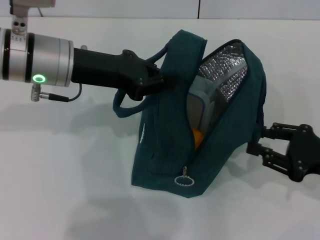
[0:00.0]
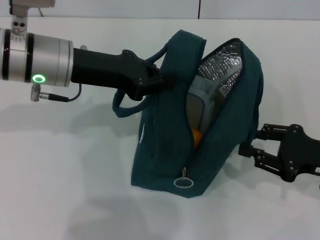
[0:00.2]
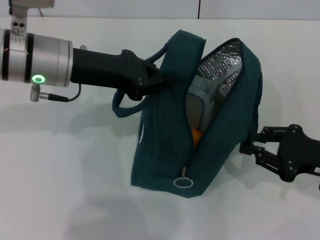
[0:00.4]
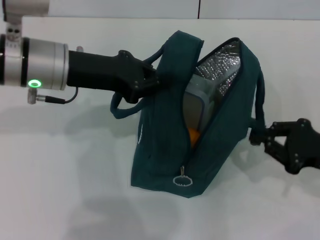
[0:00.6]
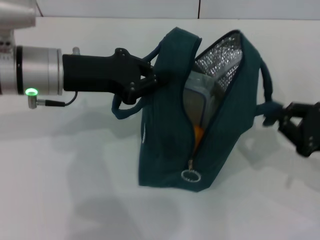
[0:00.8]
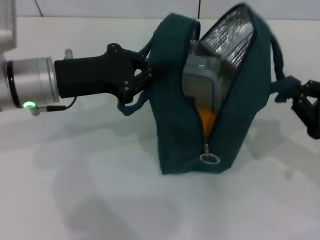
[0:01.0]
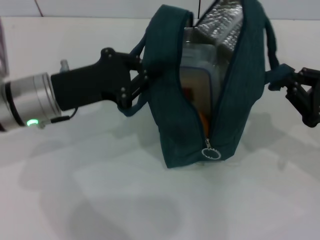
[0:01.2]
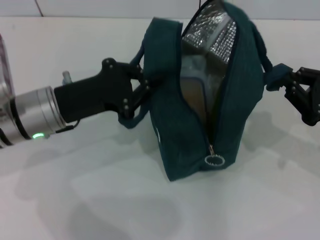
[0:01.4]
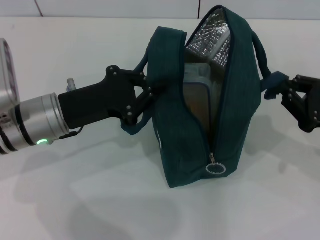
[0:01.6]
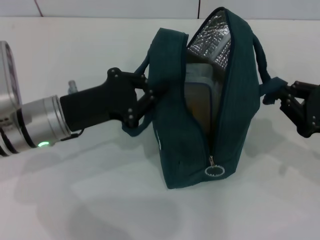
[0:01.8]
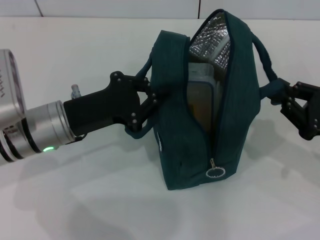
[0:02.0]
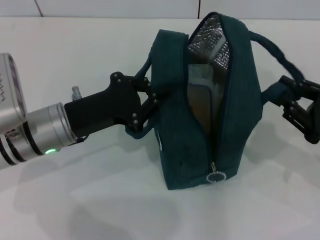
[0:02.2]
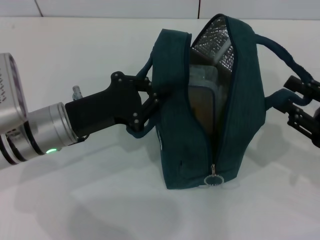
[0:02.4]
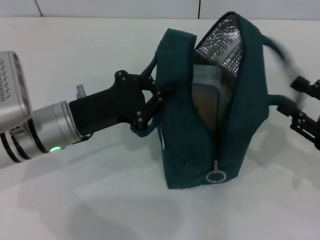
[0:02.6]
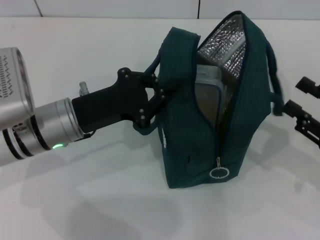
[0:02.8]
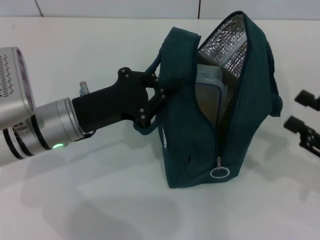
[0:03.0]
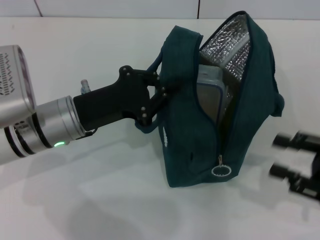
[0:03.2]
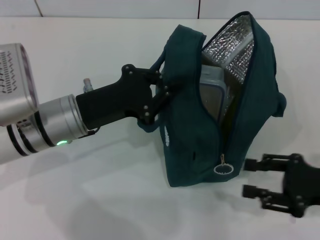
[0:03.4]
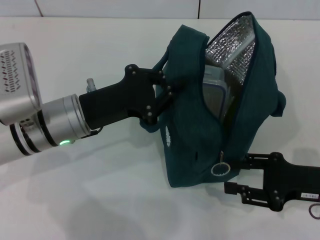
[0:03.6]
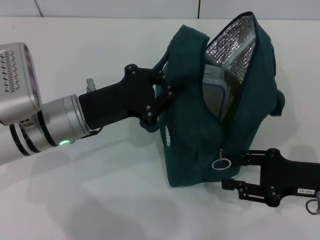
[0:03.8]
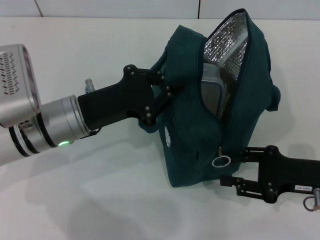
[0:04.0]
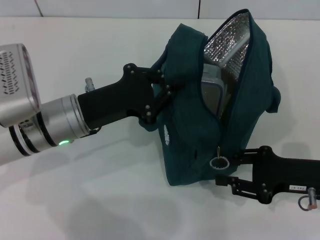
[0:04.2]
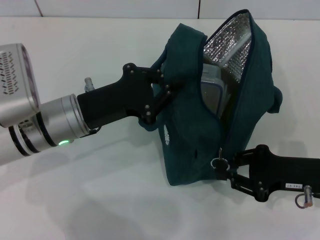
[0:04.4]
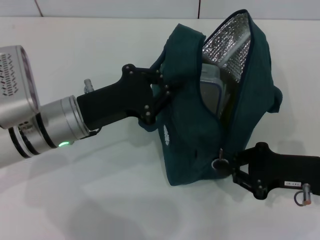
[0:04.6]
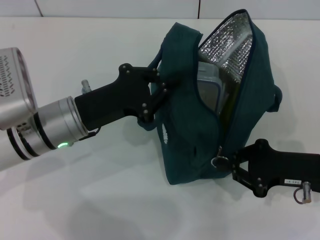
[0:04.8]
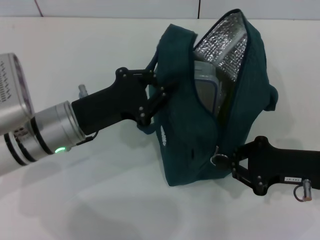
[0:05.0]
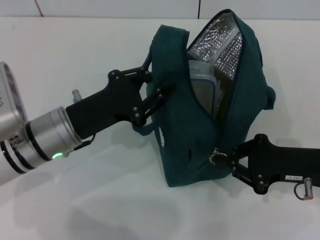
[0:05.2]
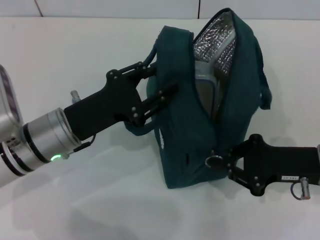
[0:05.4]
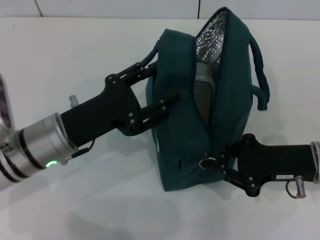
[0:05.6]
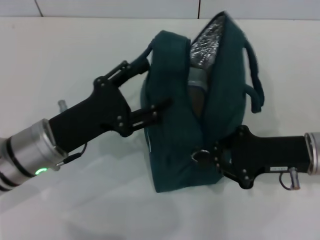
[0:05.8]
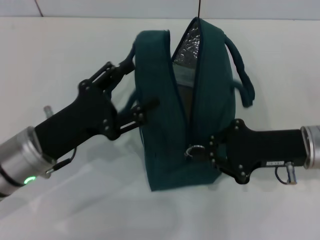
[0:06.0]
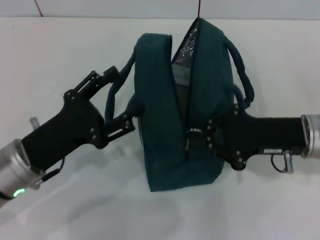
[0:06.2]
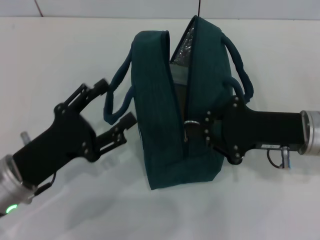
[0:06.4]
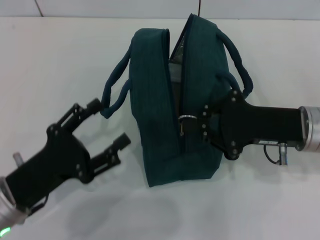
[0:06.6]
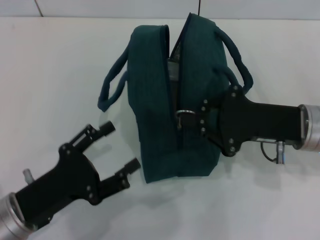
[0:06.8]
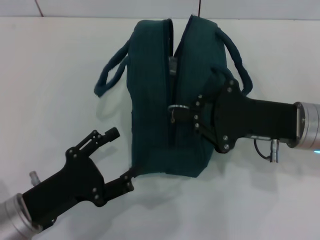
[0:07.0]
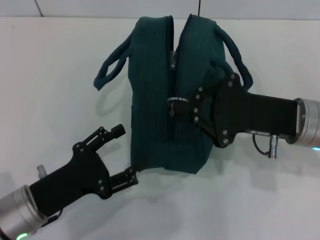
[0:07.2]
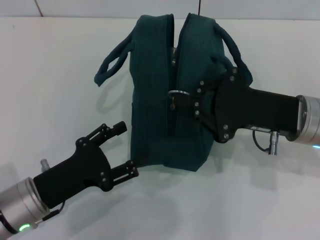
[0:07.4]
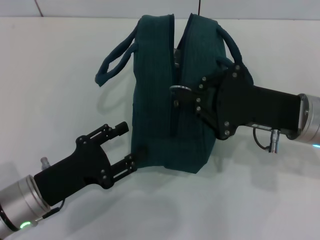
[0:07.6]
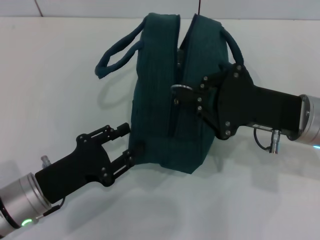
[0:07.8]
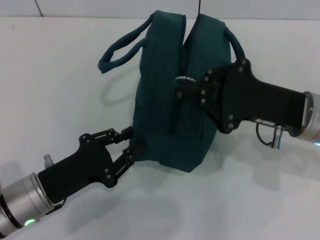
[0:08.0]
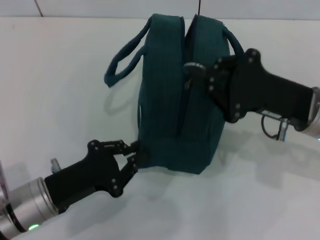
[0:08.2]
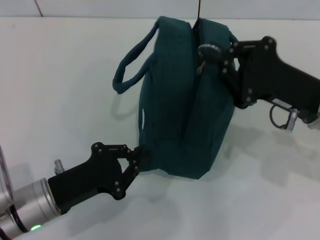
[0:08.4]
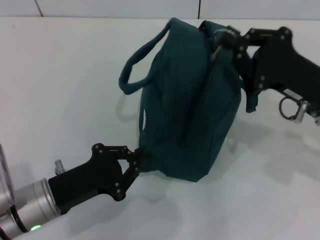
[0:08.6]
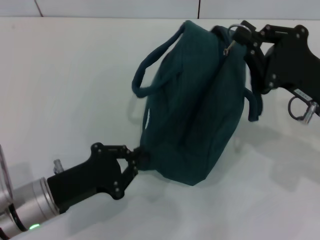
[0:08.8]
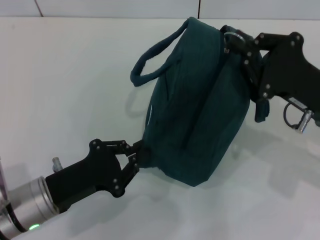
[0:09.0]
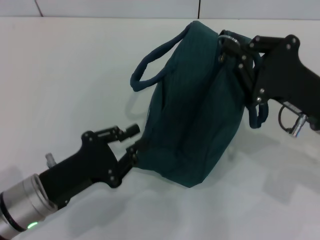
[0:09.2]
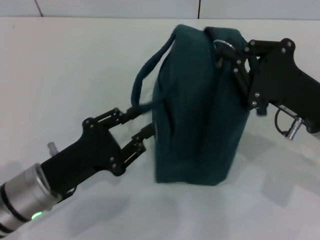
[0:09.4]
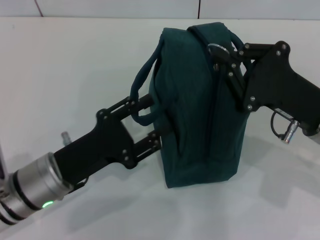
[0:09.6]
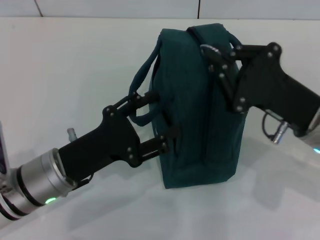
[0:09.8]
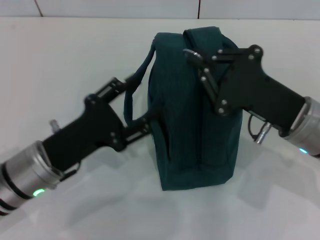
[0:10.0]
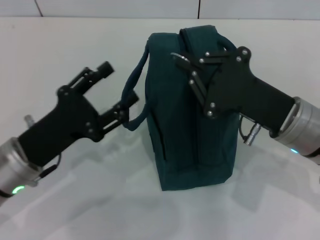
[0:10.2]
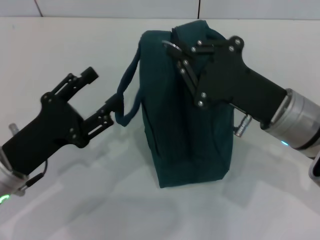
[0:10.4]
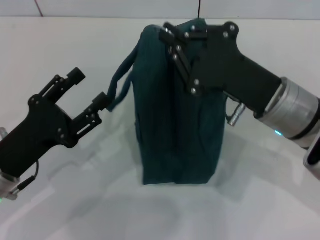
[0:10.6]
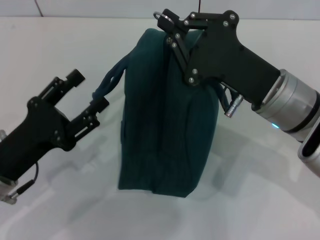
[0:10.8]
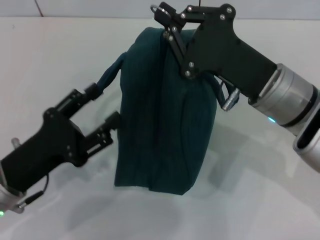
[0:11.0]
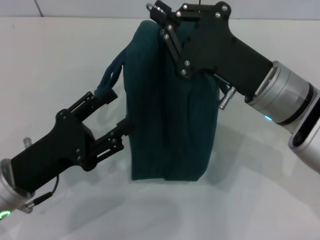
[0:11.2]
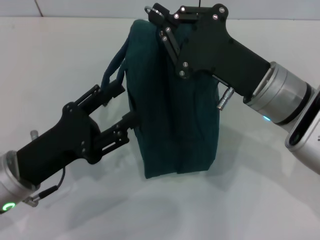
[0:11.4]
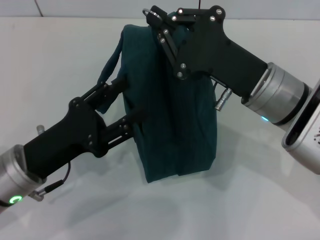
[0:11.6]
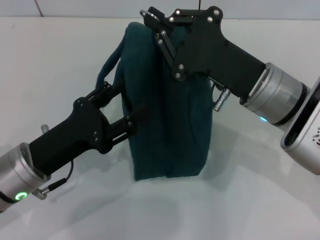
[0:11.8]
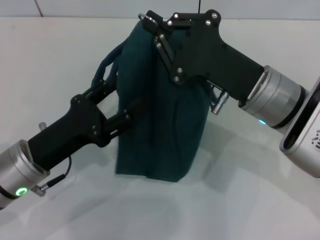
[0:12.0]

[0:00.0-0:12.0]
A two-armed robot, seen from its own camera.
Step, 0:00.0 to 0:02.4: Hold the lunch bag with your right hand.
Step, 0:02.6 to 0:05.8: Hold the lunch bag with your left hand.
0:00.0 to 0:01.6: The right gripper closes, while the left gripper goes roughly 10 cm downward and backward.
0:01.6 to 0:03.0: The right gripper opens up.
0:03.0 to 0:04.4: The right gripper travels to the left by roughly 5 cm.
0:04.4 to 0:06.0: The left gripper is displaced backward by approximately 5 cm, and opens; the right gripper ends up roughly 5 cm from where it was, and closes its fingers.
0:06.0 to 0:07.6: The left gripper moves about 5 cm.
0:07.6 to 0:09.0: The left gripper closes.
0:09.0 to 0:10.4: The right gripper shifts some 5 cm to the left, while the left gripper opens.

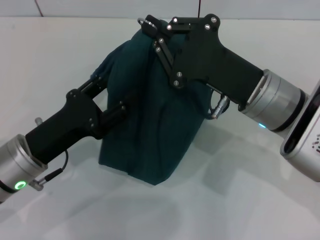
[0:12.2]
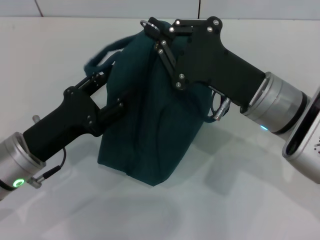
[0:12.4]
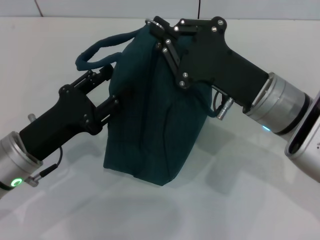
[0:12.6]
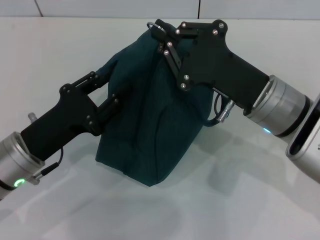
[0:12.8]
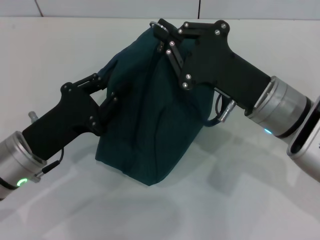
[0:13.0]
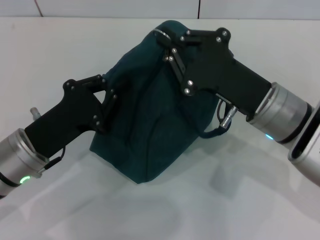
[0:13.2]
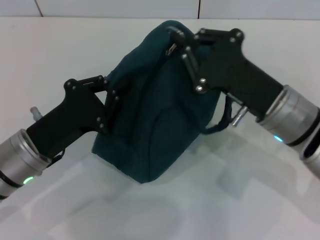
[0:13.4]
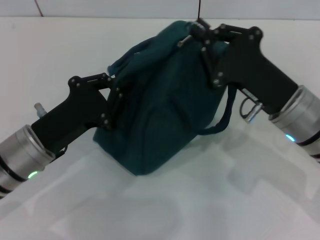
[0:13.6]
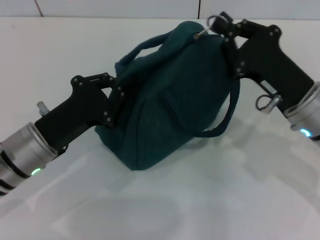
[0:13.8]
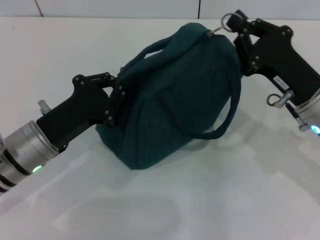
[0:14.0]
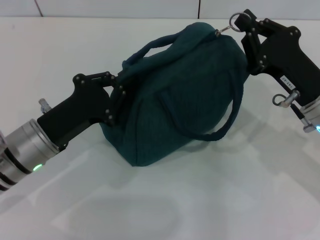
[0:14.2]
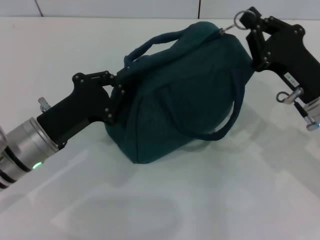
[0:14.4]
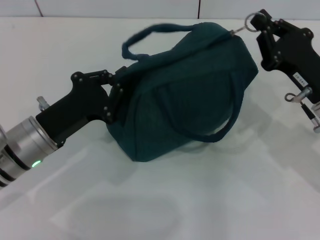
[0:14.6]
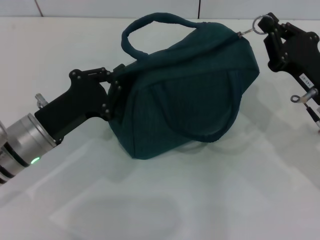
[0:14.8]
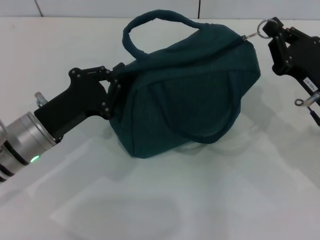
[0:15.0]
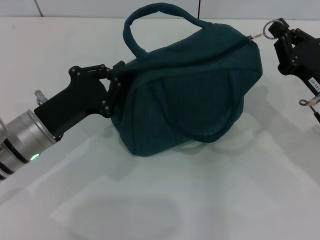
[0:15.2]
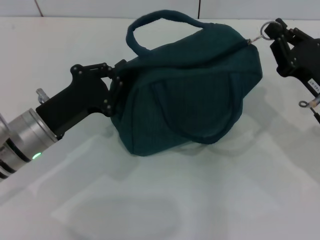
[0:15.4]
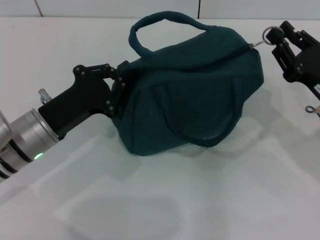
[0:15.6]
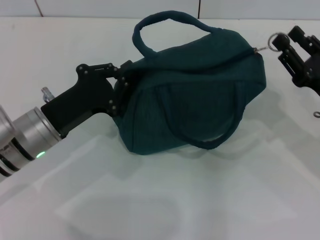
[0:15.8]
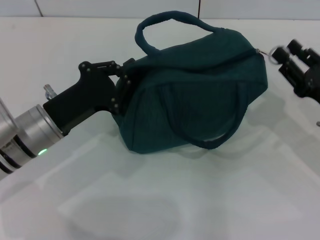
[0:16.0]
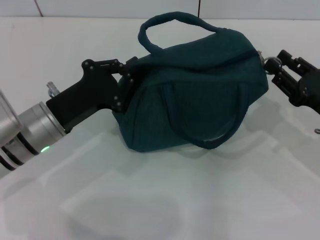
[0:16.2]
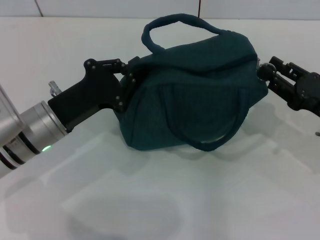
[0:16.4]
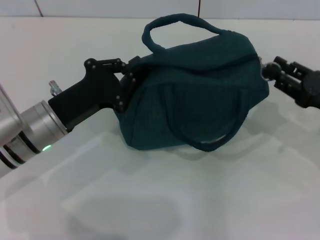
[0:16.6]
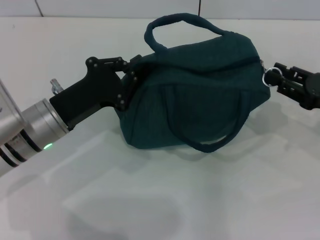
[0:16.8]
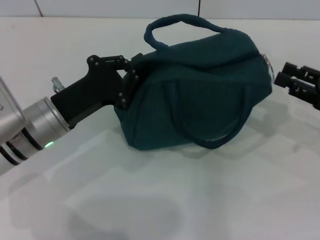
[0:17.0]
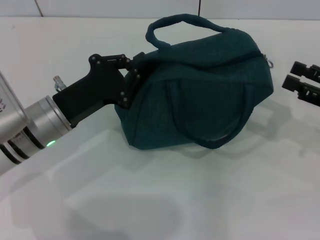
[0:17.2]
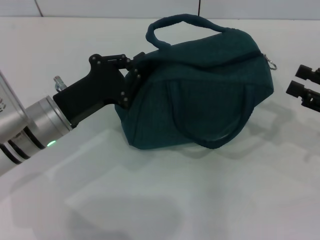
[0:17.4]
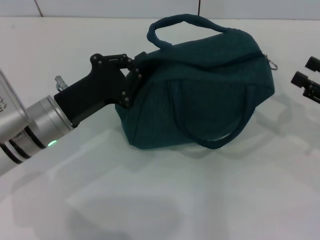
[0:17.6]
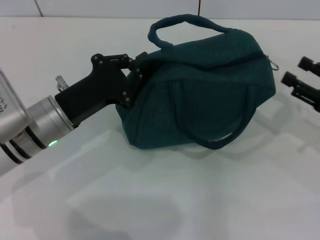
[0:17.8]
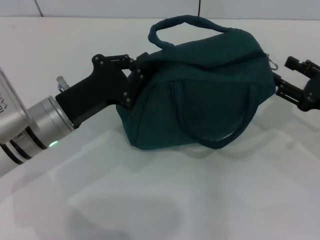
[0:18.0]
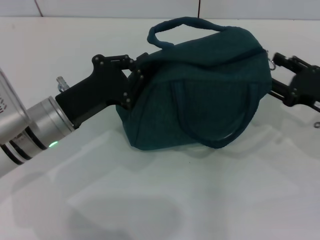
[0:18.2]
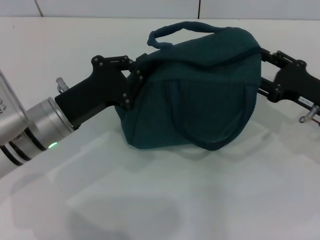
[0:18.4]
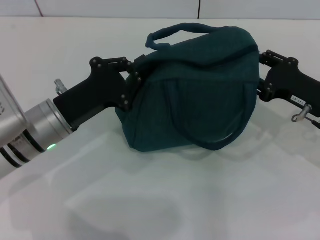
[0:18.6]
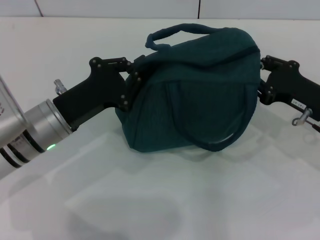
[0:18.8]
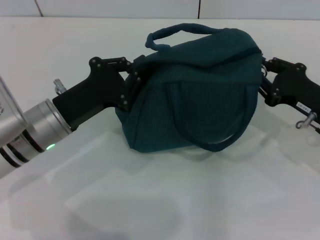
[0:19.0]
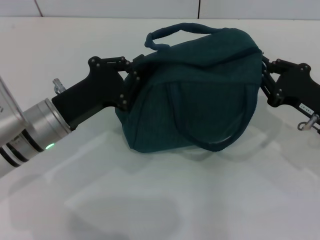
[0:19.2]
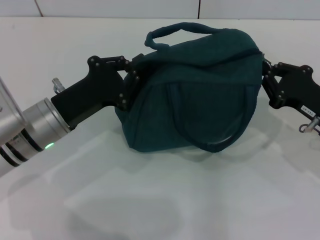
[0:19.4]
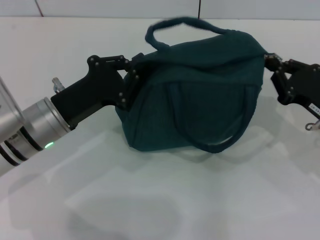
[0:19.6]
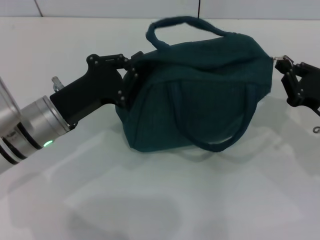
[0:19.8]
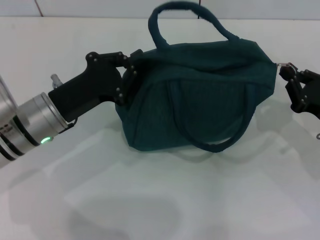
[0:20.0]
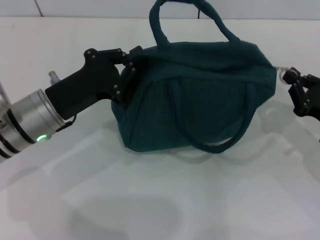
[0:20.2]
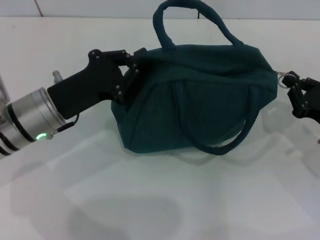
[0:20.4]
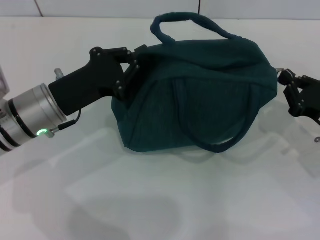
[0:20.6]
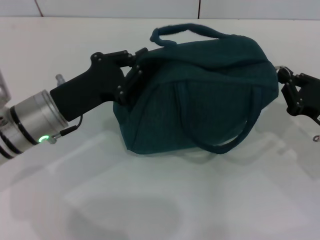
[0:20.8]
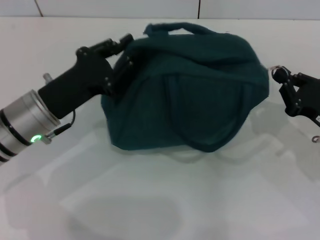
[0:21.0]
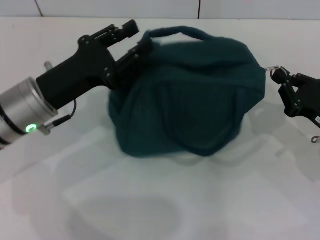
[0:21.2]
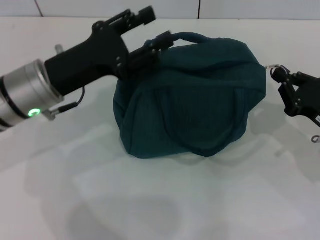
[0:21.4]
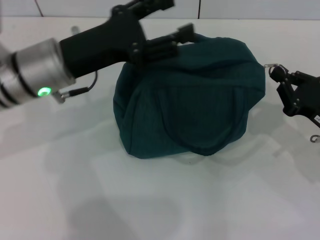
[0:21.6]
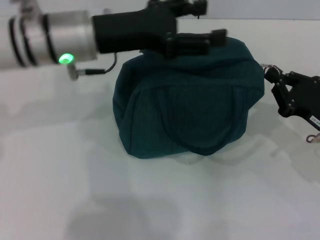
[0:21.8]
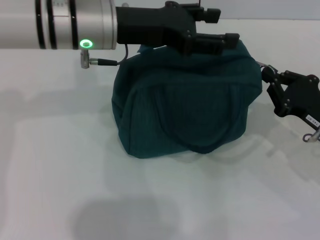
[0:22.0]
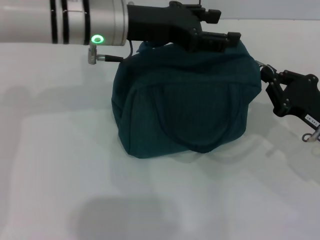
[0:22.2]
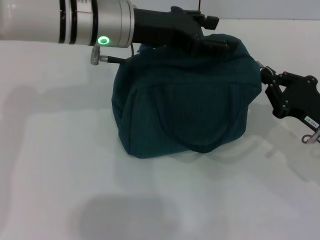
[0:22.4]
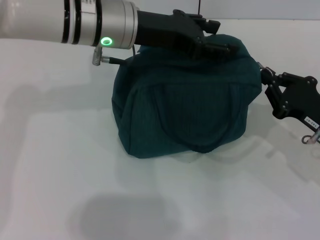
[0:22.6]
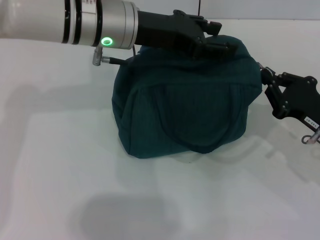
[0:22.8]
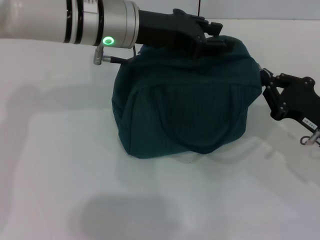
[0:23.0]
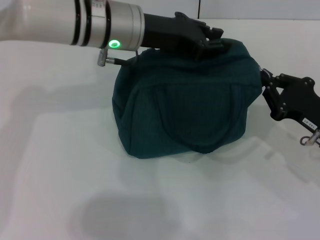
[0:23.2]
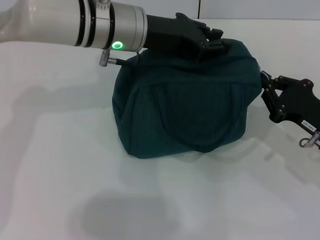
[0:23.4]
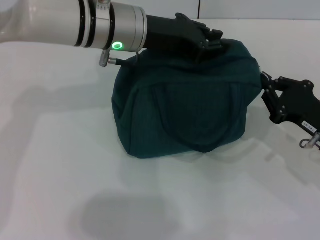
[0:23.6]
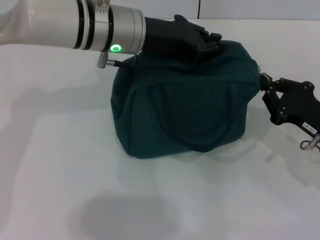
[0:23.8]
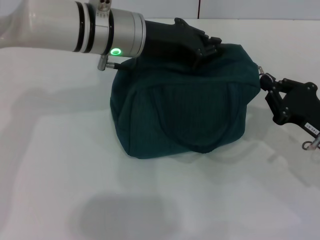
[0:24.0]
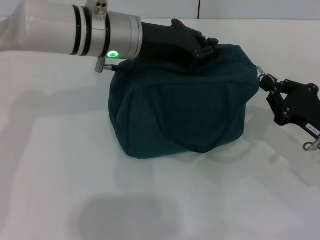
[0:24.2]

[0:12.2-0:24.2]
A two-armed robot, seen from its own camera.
0:12.2 to 0:13.8: The left gripper closes its fingers; the right gripper heads to the right, covering approximately 5 cm.
0:13.8 to 0:15.2: The right gripper shifts approximately 5 cm to the right.
0:15.2 to 0:16.6: The right gripper opens.
0:16.6 to 0:18.2: There are only small adjustments of the grippers.
0:18.2 to 0:19.8: The right gripper closes its fingers.
0:19.8 to 0:21.2: There are only small adjustments of the grippers.
0:21.2 to 0:22.6: The left gripper goes approximately 15 cm to the right, forward and upward, and opens.
0:22.6 to 0:24.2: The left gripper closes its fingers.
